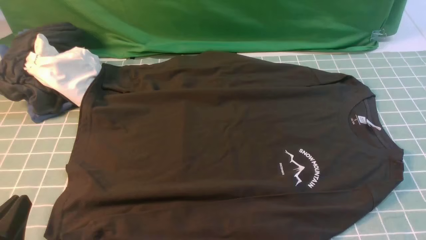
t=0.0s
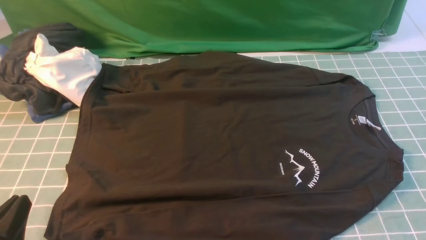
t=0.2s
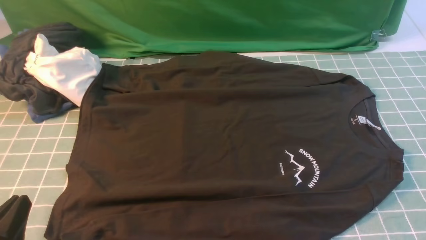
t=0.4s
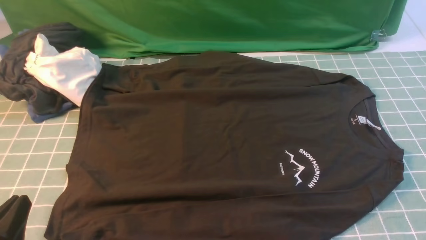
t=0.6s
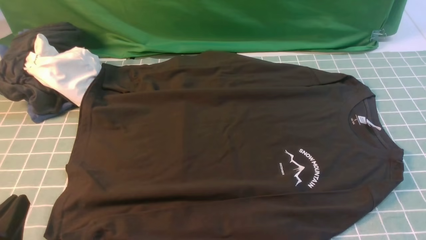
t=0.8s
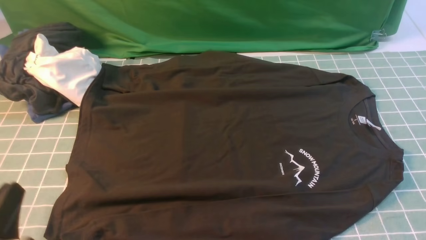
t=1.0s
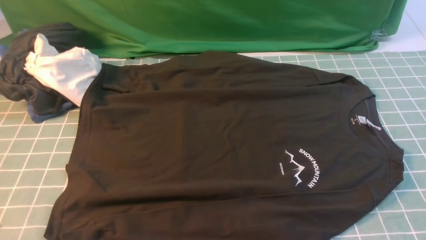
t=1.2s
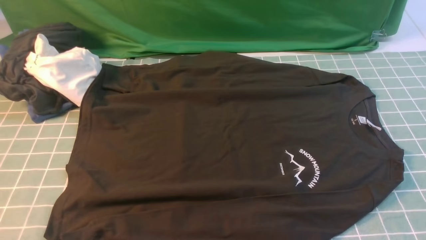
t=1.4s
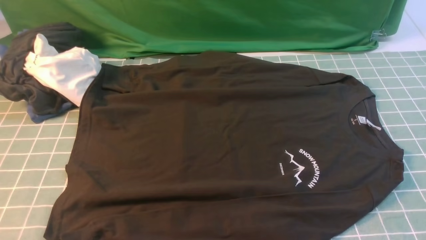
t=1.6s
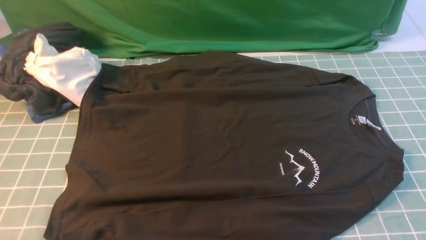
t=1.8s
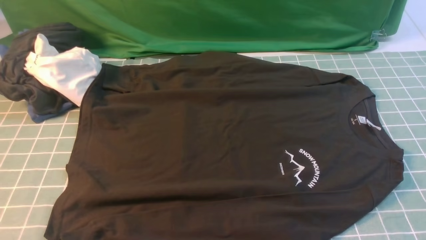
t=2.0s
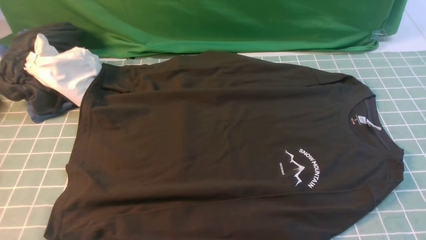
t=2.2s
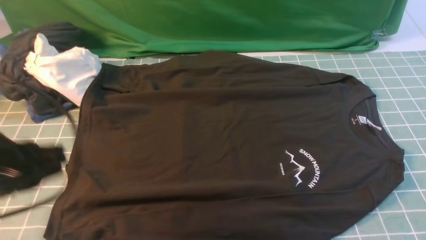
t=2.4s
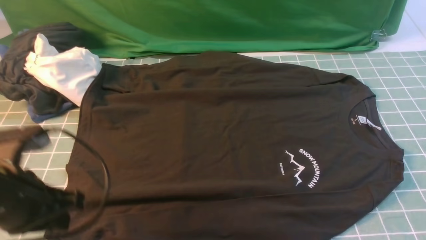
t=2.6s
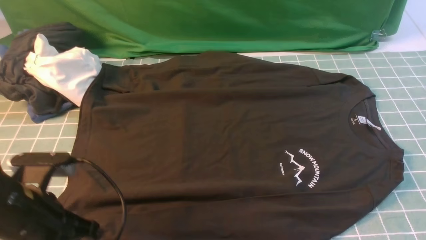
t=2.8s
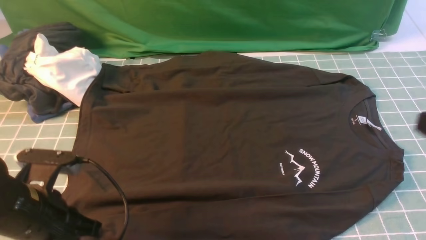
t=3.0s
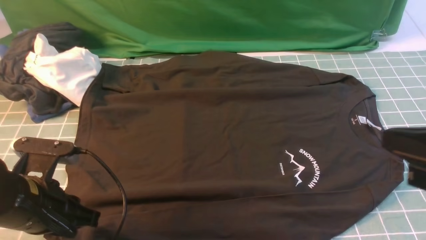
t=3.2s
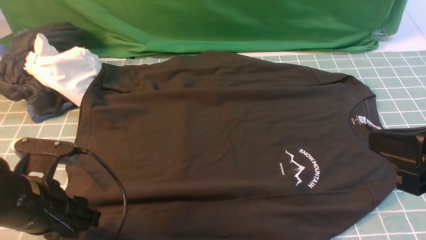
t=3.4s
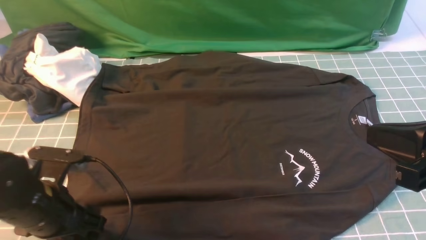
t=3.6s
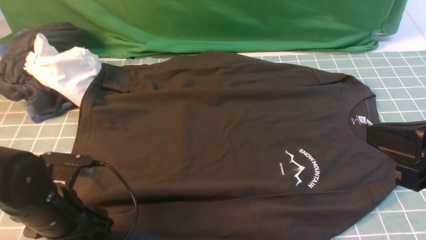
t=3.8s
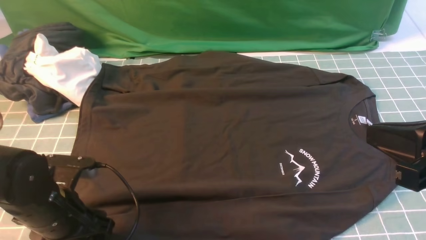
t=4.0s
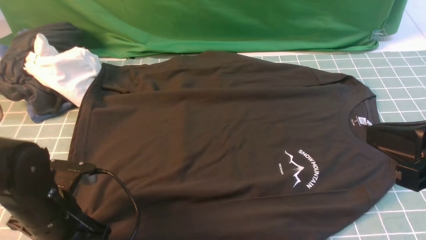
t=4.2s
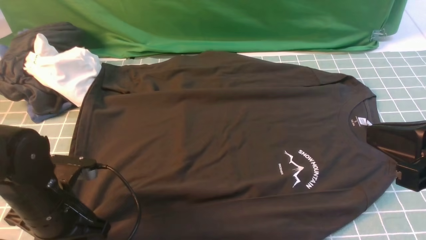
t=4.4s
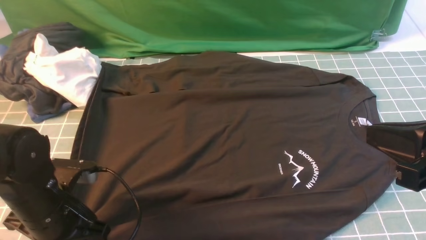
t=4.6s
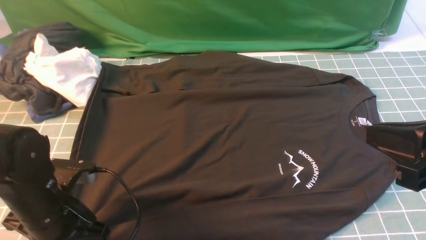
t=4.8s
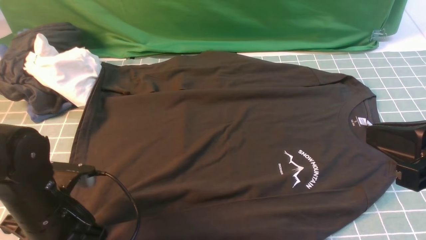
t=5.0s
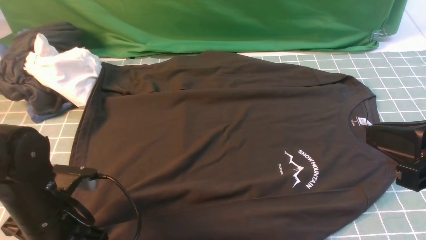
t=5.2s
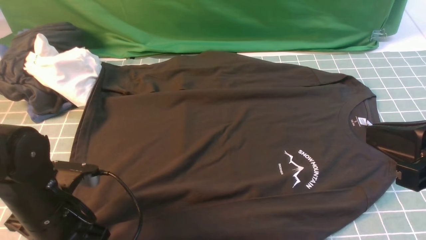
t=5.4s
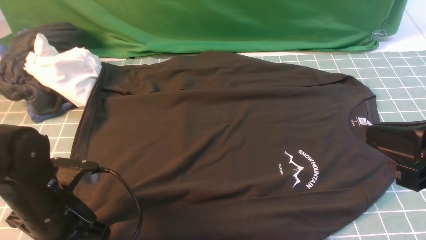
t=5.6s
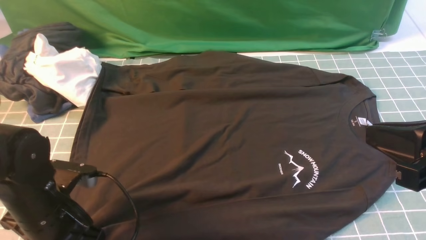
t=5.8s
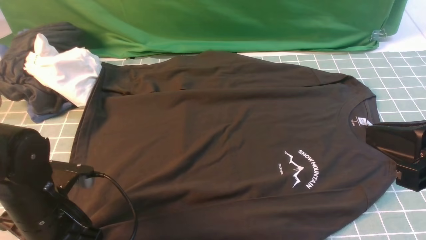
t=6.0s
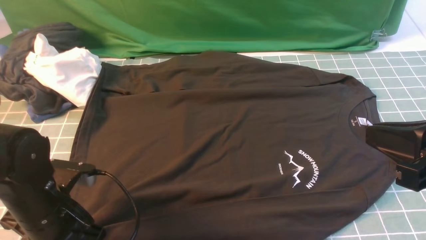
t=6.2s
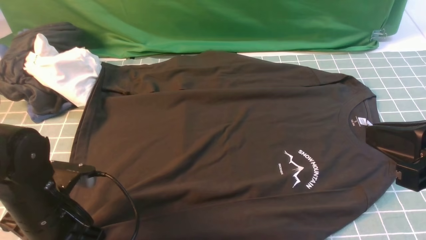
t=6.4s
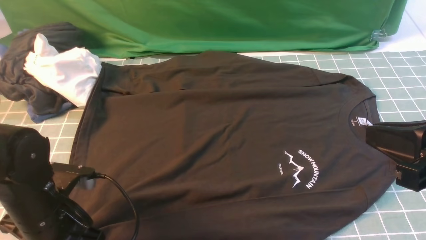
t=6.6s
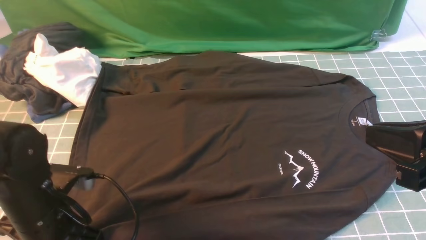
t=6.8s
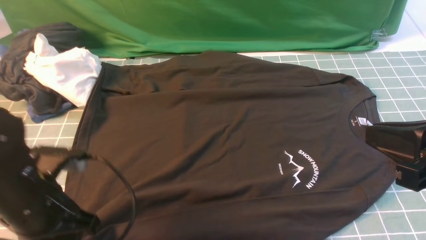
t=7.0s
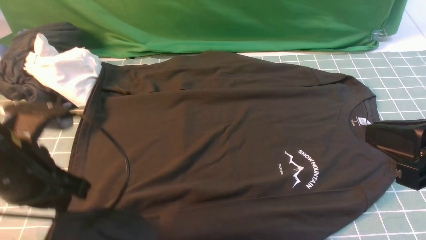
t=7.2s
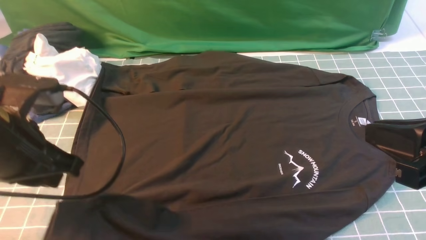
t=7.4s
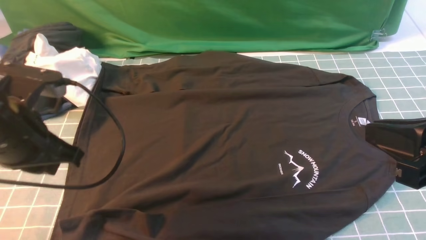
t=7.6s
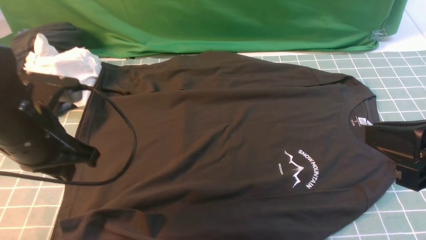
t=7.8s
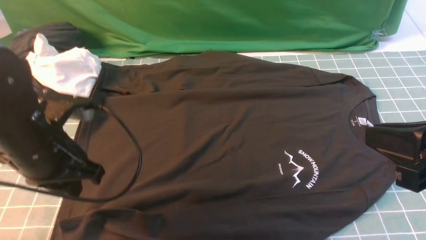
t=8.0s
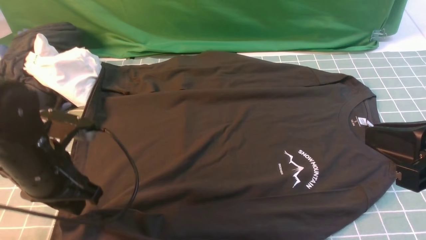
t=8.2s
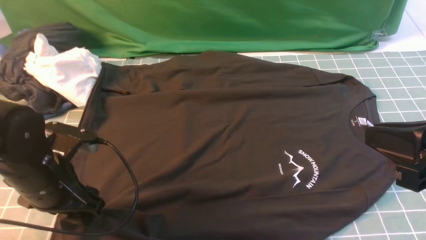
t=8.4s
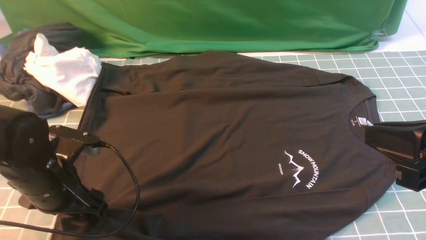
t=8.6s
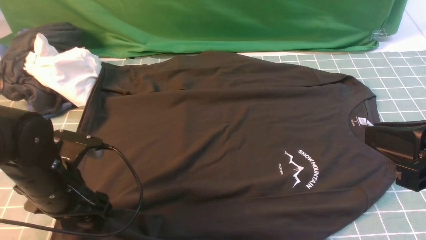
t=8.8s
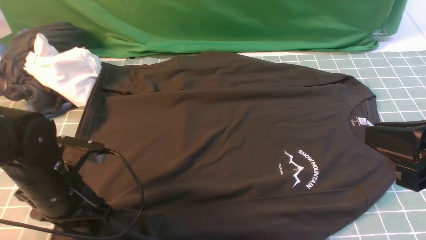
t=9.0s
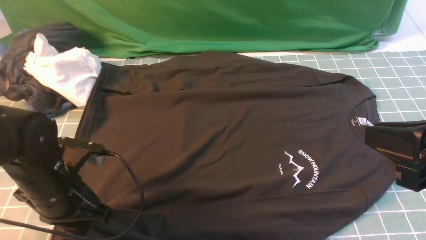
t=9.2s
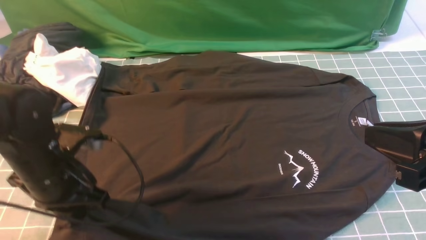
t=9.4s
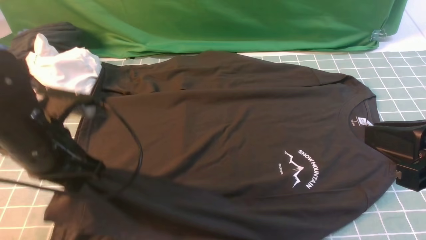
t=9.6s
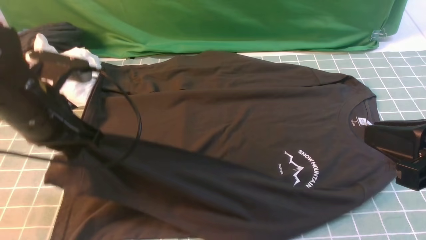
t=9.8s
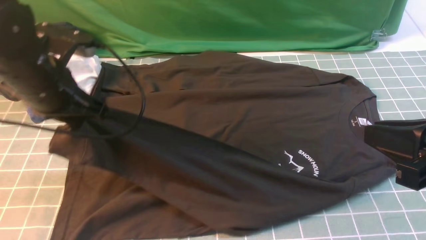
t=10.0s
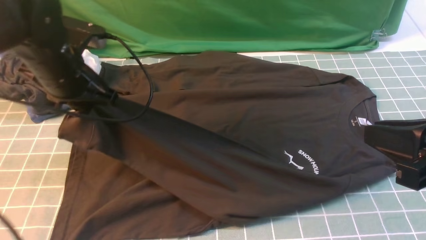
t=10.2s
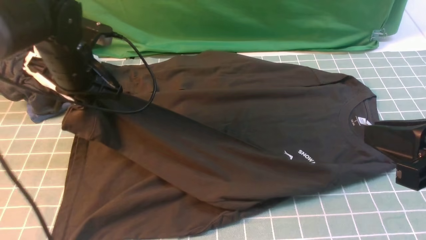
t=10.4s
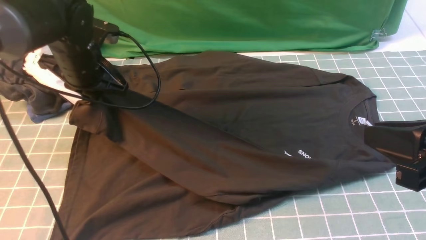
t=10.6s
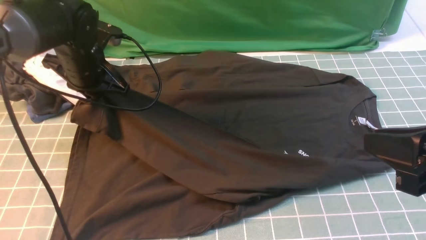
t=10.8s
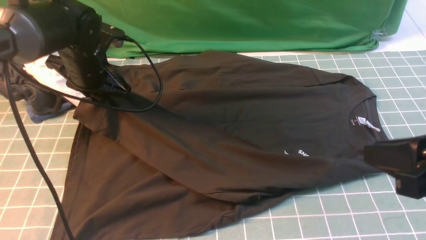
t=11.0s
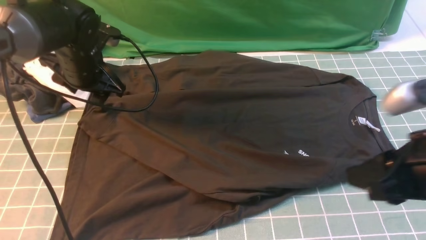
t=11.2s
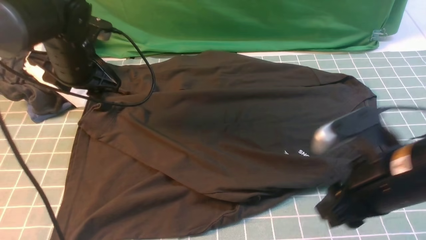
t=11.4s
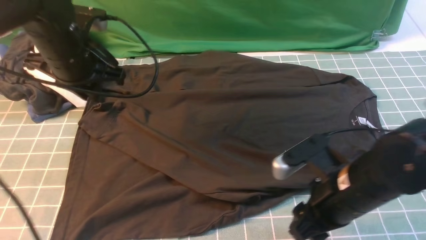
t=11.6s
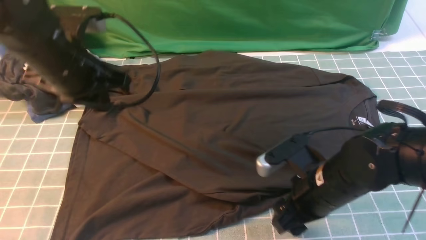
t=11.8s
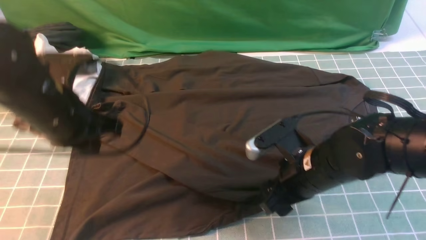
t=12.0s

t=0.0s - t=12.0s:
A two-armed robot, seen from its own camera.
Step, t=0.0s - t=9.0s: use the left arm to clamp the cuff closest to it.
Step, t=9.4s - t=11.4s: use the left arm to drag and place the cuff at the centered position on the left edge of the fabric.
t=0.0s - t=1.6s: The left gripper travels upward by roughly 5 cm.
t=1.6s - t=3.0s: The left gripper heads forward and downward, covering approximately 15 cm.
t=3.0s - t=4.4s: The left gripper opens, then closes again.
t=4.4s - t=6.0s: The two grippers keep their place.
t=6.0s - t=7.6s: The left gripper travels upward by approximately 10 cm, and closes.
t=7.6s - t=9.0s: The left gripper travels downward by approximately 10 cm, and opens its fingers.
t=9.0s - t=10.4s: The left gripper shifts some 15 cm forward and upward, and closes.
t=10.4s - t=12.0s: The left gripper travels backward by roughly 10 cm, and opens, then closes again. The right gripper shifts about 20 cm downward, to the left and forward, and opens.

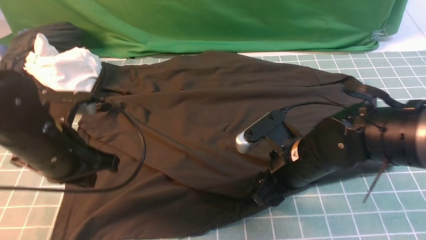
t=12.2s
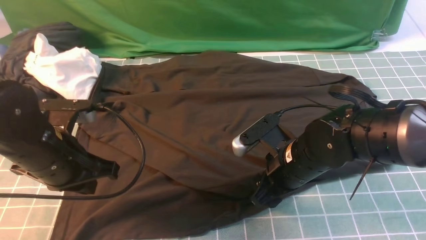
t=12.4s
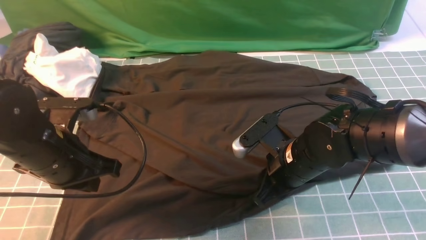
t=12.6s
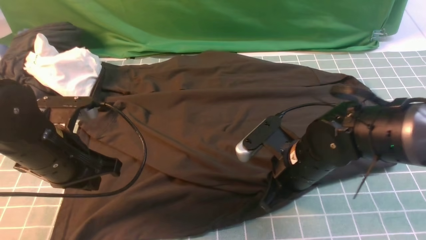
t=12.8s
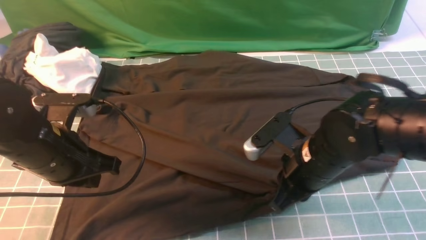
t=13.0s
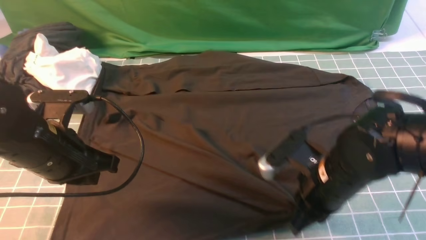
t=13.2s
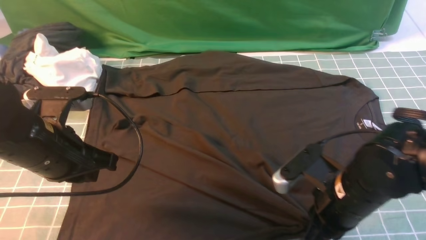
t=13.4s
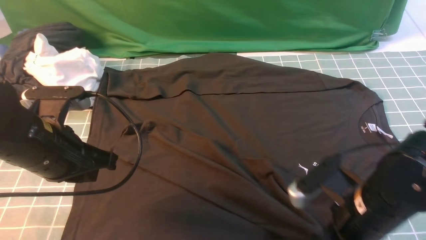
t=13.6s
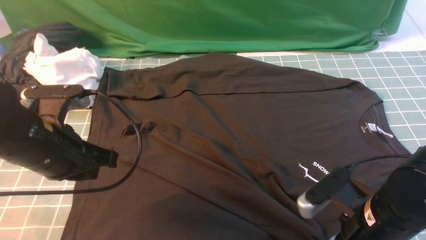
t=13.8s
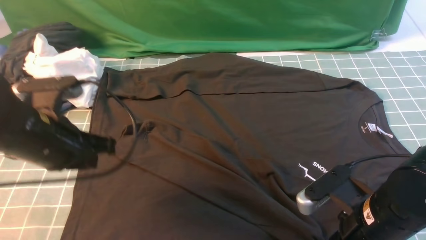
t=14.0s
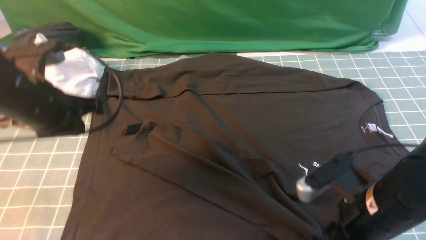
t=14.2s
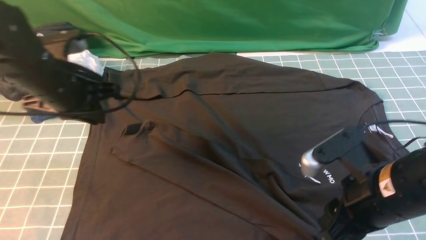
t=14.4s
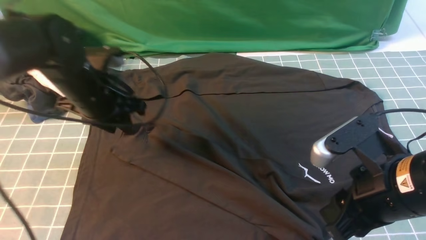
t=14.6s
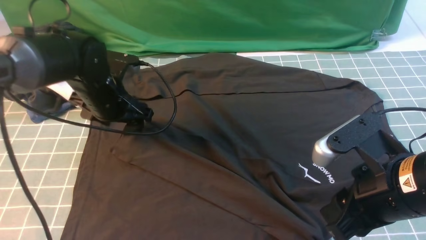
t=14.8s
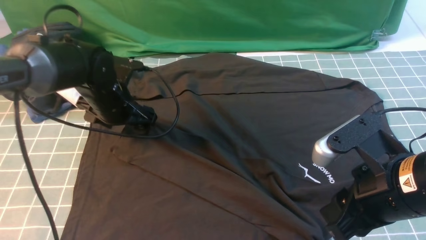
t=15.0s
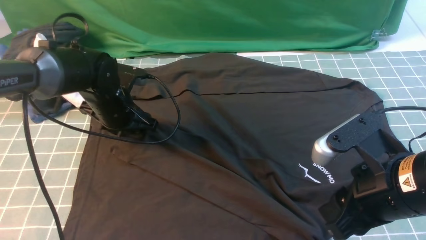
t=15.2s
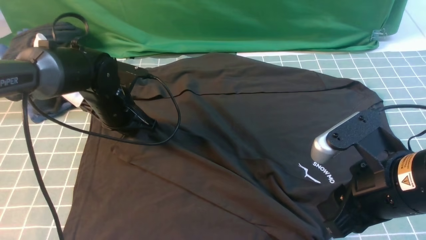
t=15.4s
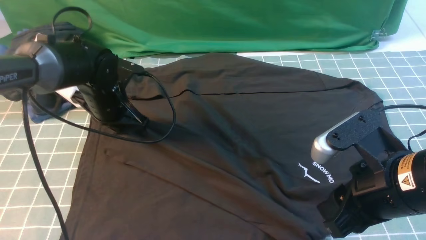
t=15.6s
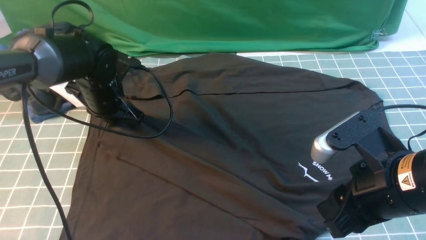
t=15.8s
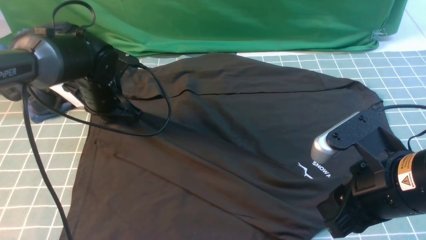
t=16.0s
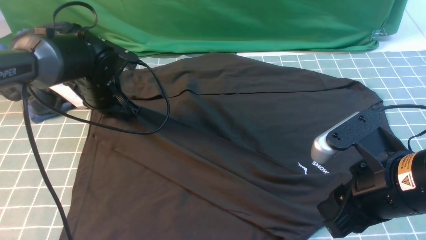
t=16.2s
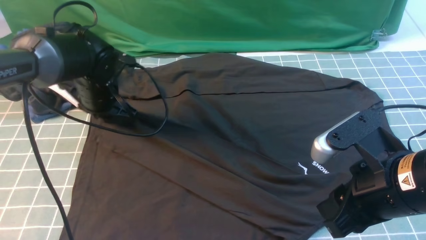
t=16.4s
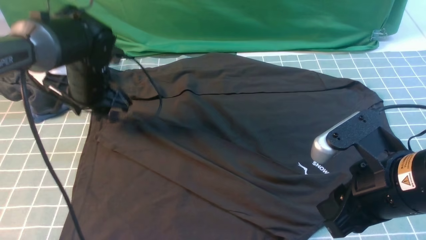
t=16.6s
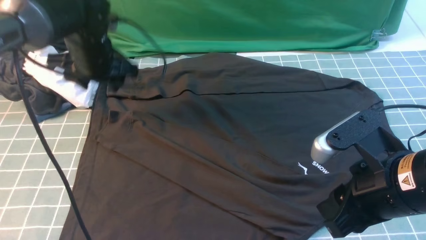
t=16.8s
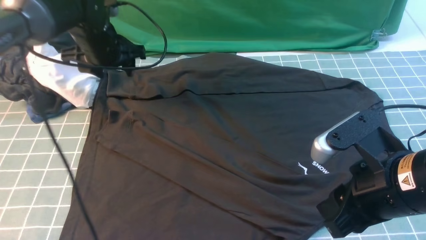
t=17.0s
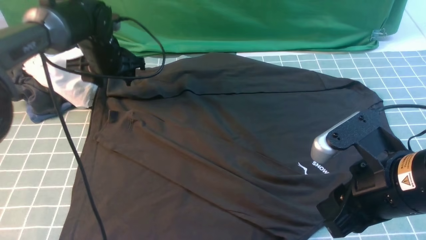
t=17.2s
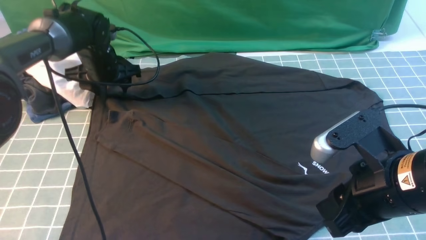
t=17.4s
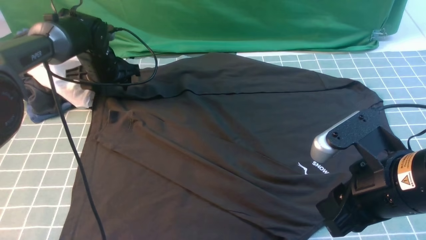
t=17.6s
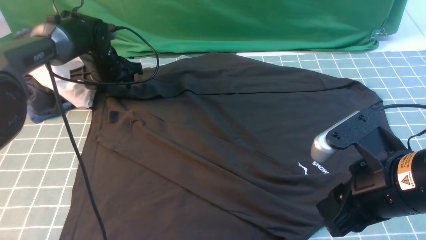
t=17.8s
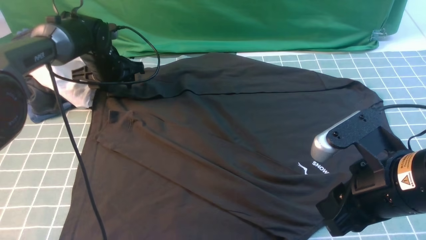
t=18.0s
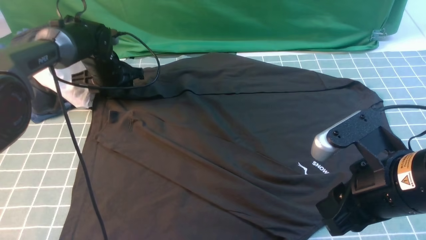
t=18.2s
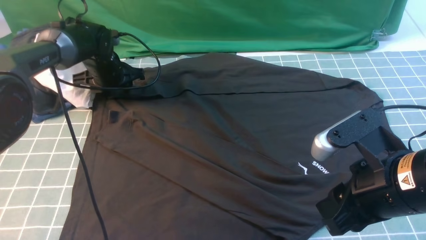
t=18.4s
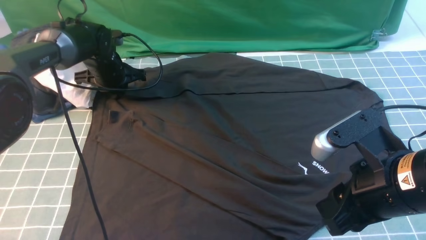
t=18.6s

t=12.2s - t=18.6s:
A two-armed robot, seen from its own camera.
Step, t=12.2s - t=18.6s: use the left arm to clamp the cuff farthest from it.
t=12.2s - t=13.8s: The right gripper is displaced backward and to the right by about 10 cm, and closes up.
t=13.8s - t=15.4s: The right gripper travels upward by about 10 cm, and opens its fingers; the left gripper goes some 15 cm forward and downward, and opens and closes again.
t=15.4s - t=17.0s: The left gripper goes about 10 cm forward and upward, and opens up.
t=17.0s - t=18.6s: The left gripper is displaced downward by roughly 5 cm, and closes.
